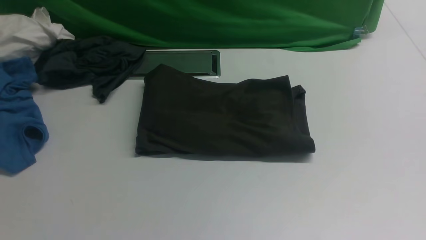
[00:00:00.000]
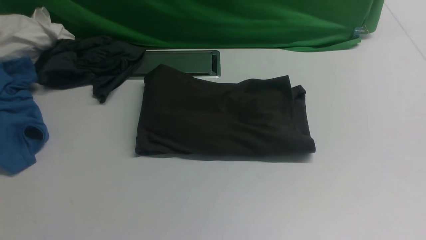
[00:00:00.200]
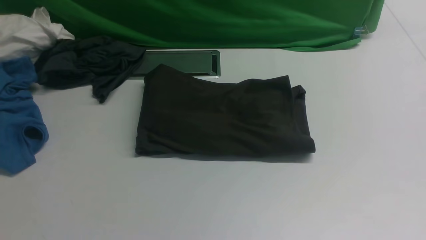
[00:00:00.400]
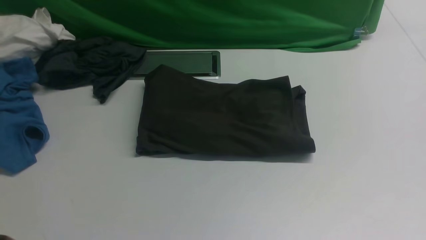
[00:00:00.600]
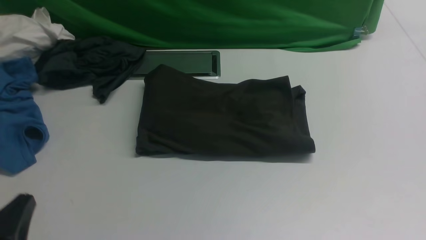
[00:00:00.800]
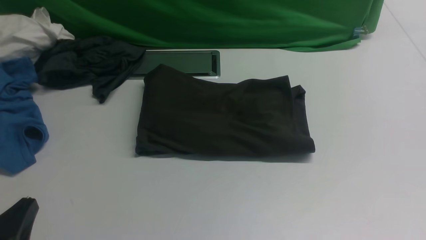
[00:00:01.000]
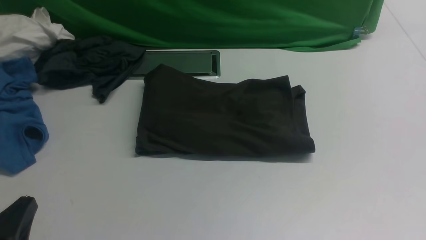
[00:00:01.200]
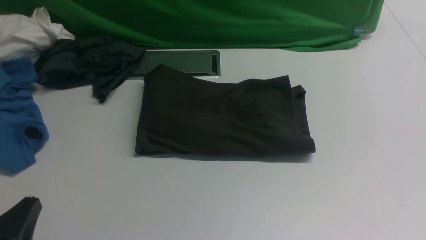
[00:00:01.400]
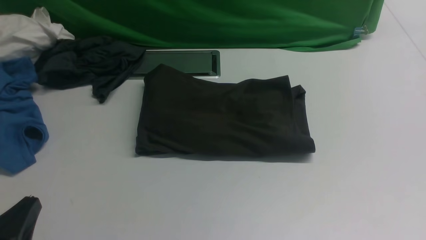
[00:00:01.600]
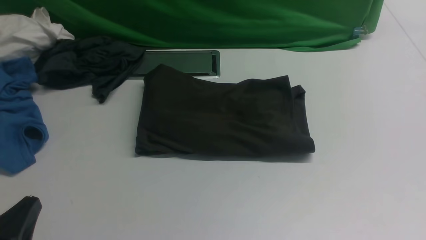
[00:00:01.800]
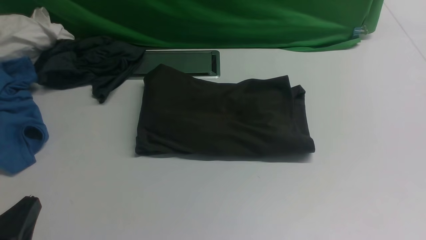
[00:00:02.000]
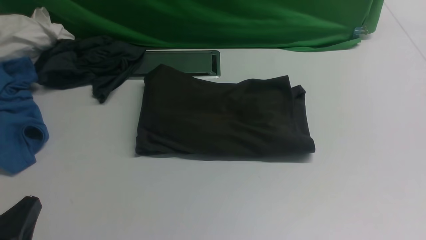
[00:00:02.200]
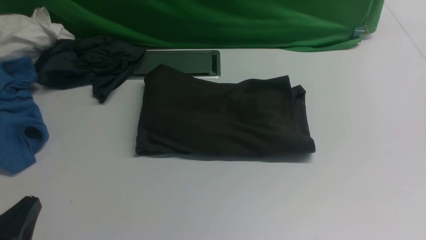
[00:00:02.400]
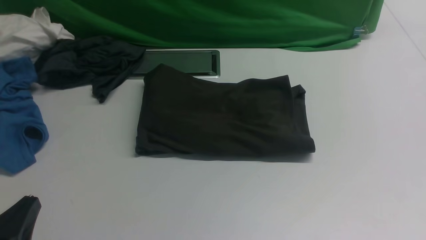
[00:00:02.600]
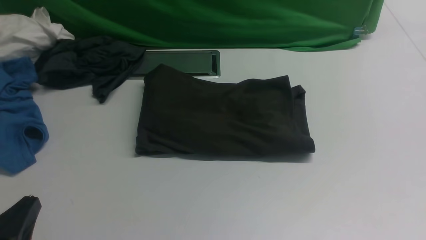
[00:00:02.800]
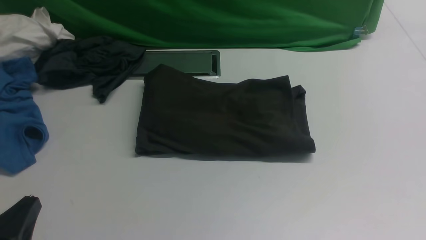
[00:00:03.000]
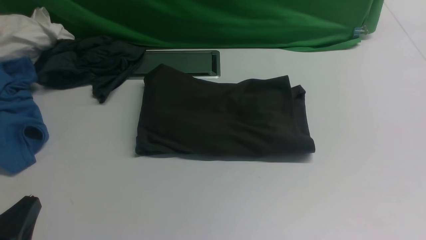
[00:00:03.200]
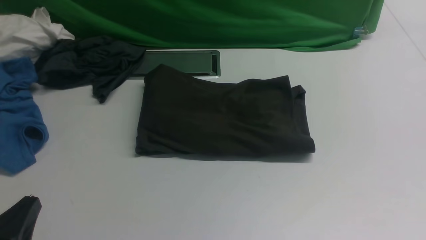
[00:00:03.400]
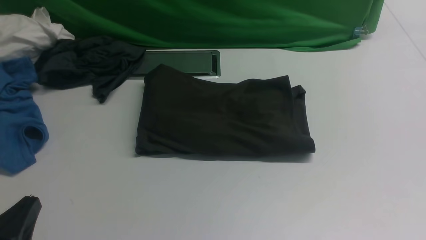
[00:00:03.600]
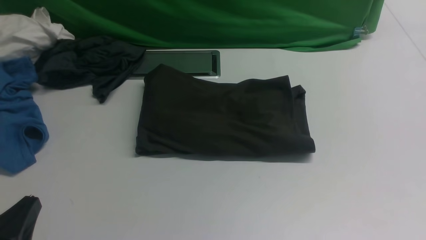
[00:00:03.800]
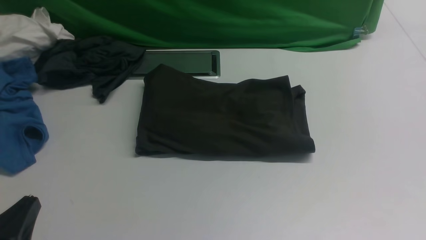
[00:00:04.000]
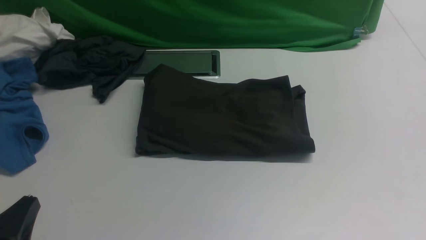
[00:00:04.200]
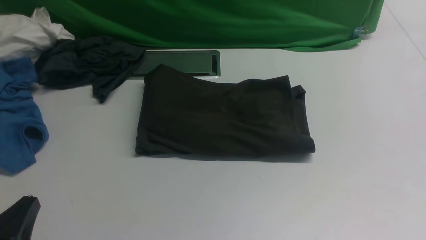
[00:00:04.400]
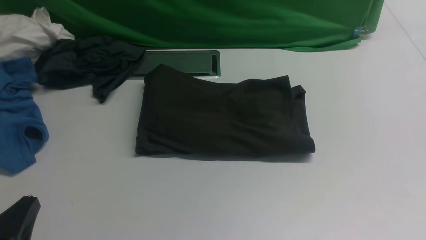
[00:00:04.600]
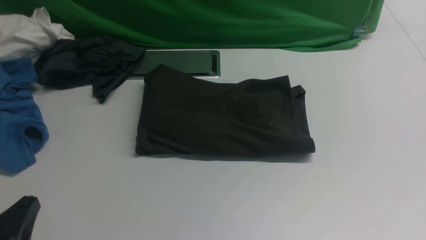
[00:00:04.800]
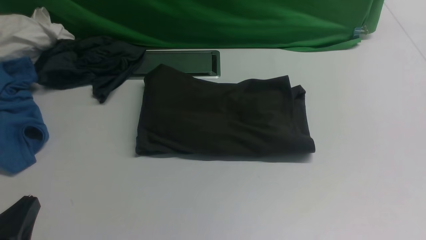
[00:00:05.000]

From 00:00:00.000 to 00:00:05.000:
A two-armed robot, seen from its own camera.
From 00:00:00.000 to 00:00:01.600: The left gripper shifts roughly 15 cm downward.
From 00:00:03.400 to 00:00:05.000: Both grippers stay put.
